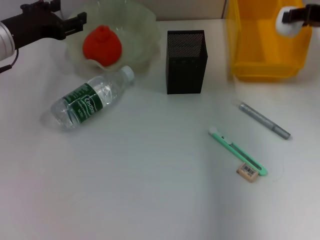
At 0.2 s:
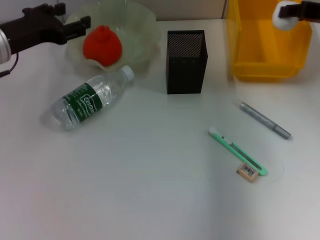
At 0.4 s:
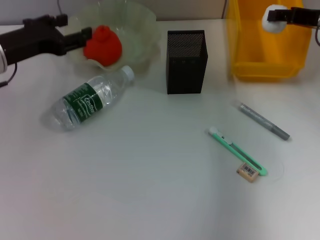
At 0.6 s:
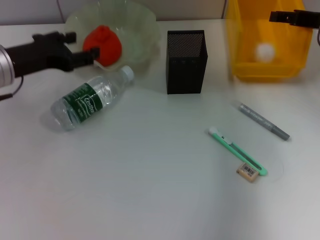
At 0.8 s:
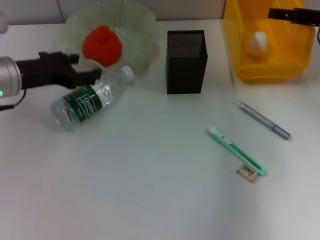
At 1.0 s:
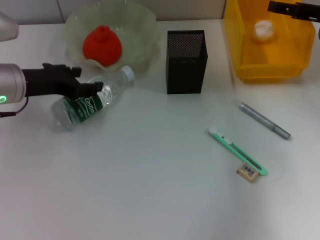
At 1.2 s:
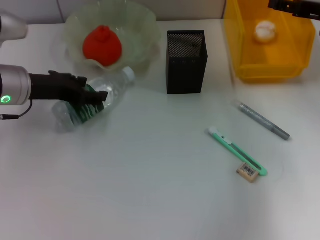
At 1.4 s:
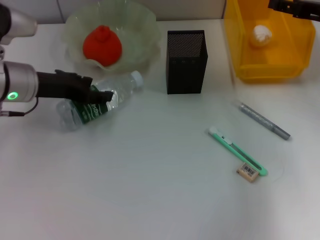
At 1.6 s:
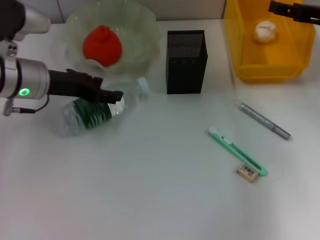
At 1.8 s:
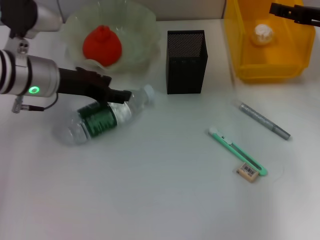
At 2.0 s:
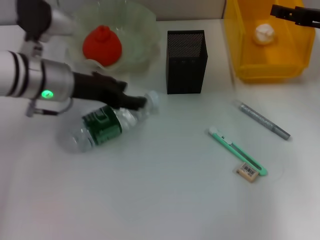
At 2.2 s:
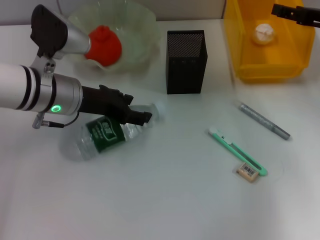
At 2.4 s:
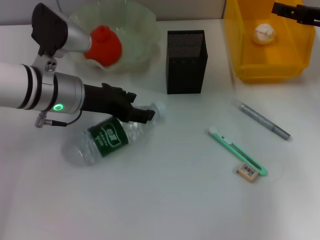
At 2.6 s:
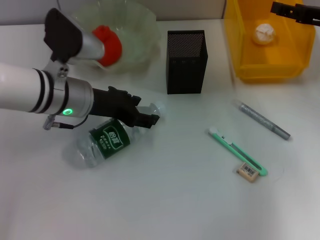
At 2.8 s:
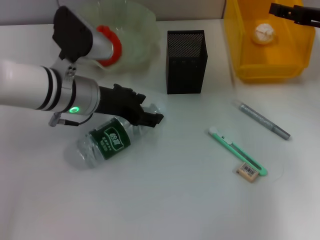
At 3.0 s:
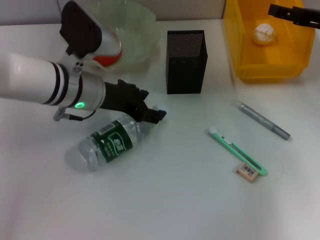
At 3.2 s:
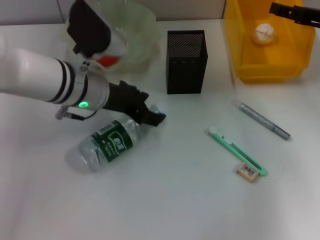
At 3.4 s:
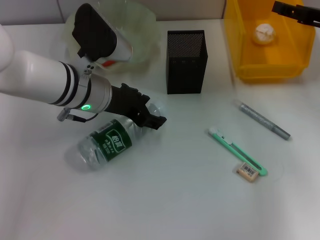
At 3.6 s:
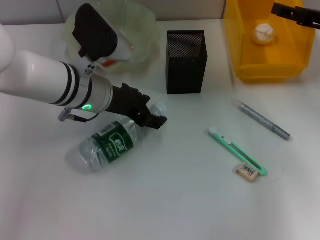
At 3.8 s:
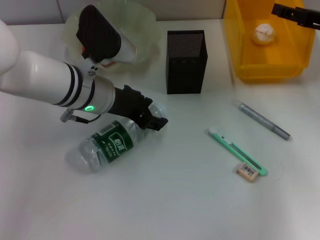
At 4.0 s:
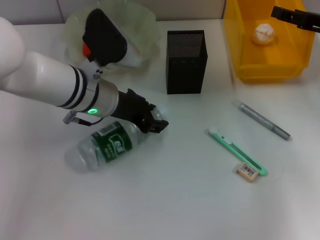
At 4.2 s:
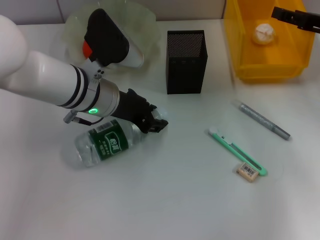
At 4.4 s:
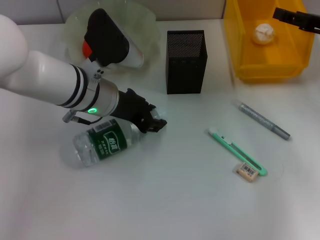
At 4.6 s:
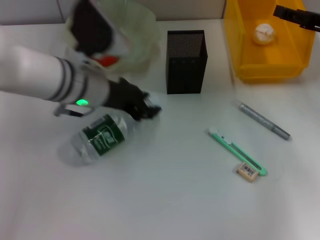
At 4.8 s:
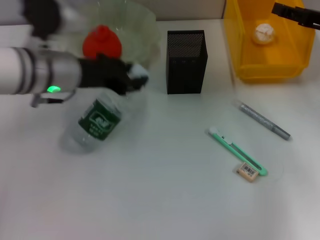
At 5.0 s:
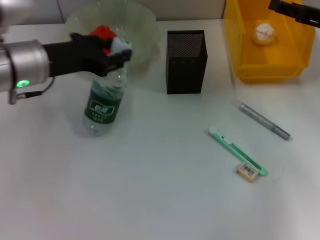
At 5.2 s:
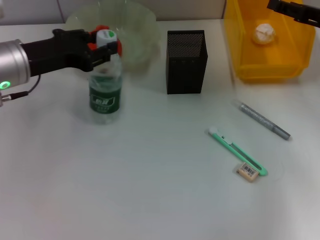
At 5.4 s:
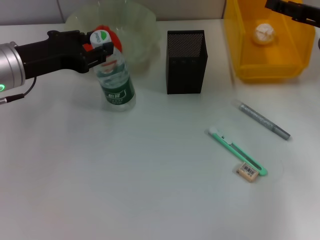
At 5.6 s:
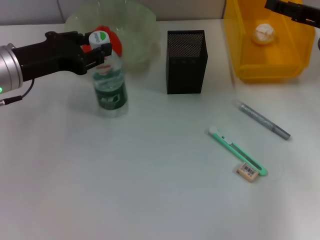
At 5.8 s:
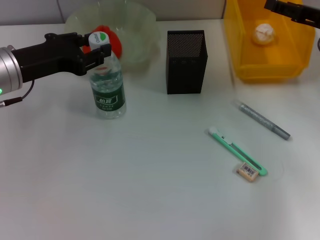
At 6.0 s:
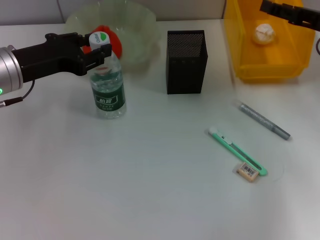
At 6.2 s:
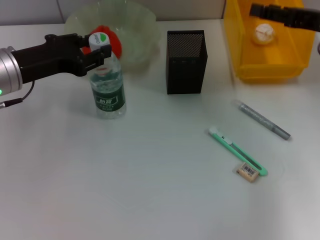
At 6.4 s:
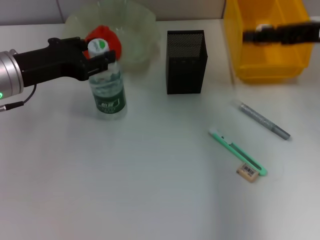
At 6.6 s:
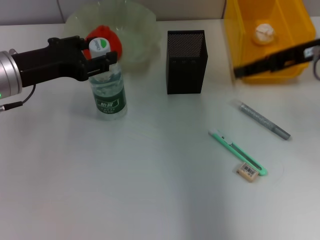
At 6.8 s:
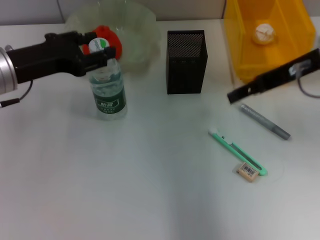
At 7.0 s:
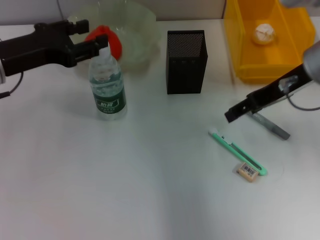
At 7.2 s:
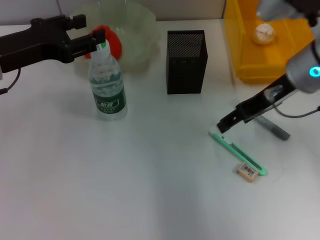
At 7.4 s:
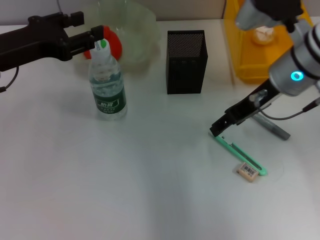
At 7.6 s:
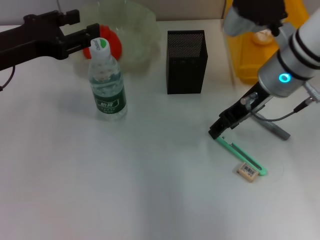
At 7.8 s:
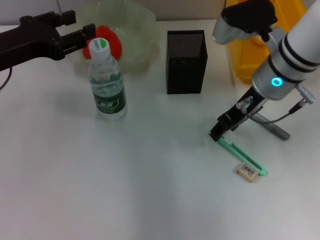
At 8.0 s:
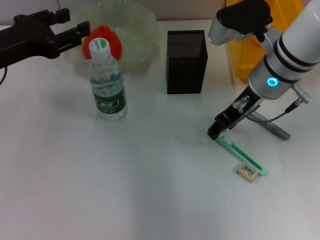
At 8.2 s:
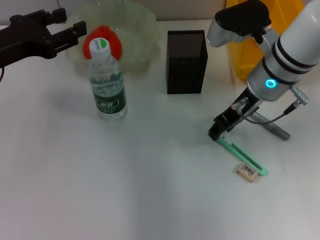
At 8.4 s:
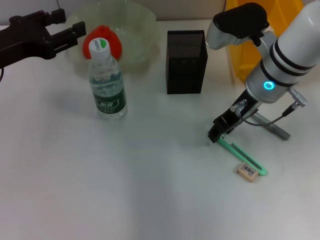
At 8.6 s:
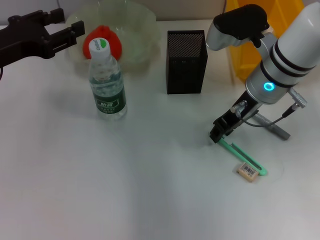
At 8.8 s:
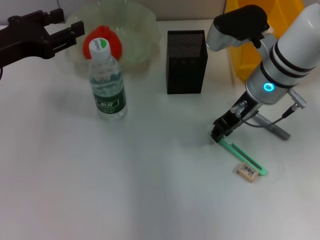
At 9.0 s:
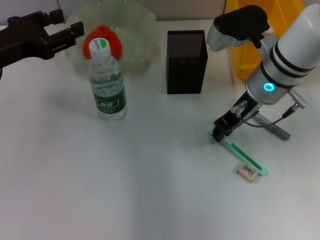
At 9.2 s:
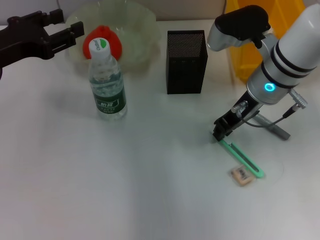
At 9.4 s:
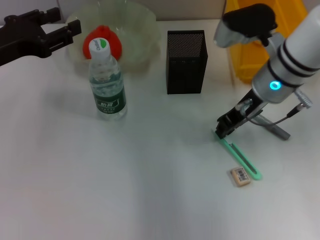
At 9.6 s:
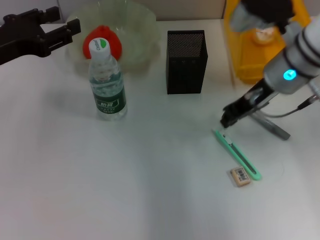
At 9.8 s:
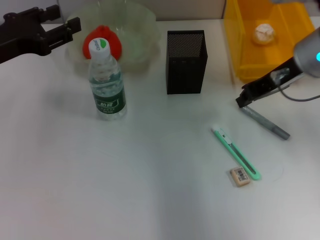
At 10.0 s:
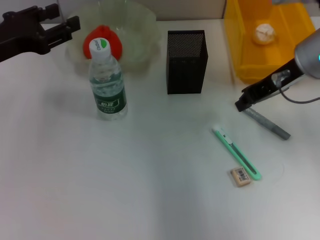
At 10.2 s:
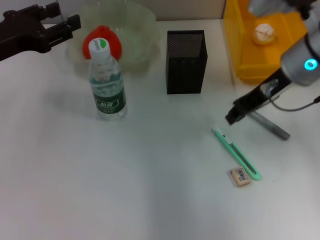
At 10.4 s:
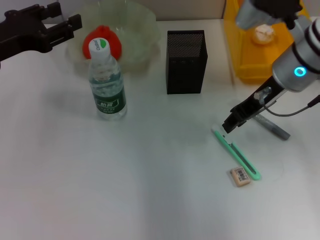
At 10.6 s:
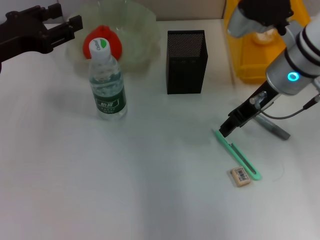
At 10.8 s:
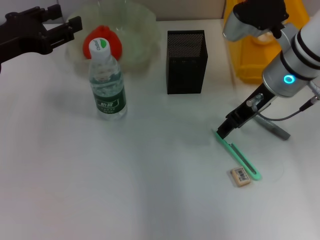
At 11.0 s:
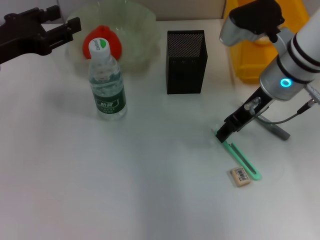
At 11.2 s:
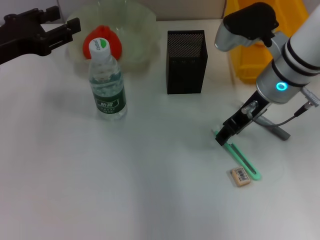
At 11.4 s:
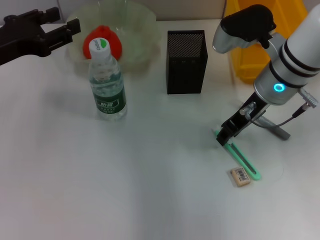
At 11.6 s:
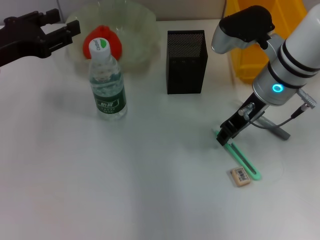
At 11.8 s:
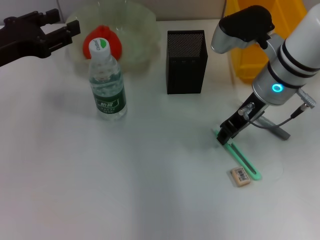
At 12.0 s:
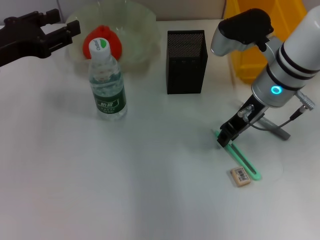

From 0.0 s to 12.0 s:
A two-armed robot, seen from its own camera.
Step, from 0.8 s to 4.4 s: Grab the water bottle with the left hand.
Step, from 4.6 s to 6.8 s: Place the water bottle on the table with the left hand.
From 0.0 s to 1.6 s: The right gripper opens. Meanwhile the left gripper shifts by roughly 5 cm.
From 1.6 s to 3.0 s: The left gripper moves to the right, approximately 10 cm.
From 3.0 s to 4.4 s: The left gripper closes up.
From 4.4 s to 6.0 s: The left gripper is displaced to the left by some 10 cm.
From 6.0 s to 7.6 s: The right gripper is displaced to the left by about 15 cm.
From 7.6 s to 9.0 s: The right gripper closes up.
From 10.4 s to 12.0 s: The right gripper opens, then closes once more.

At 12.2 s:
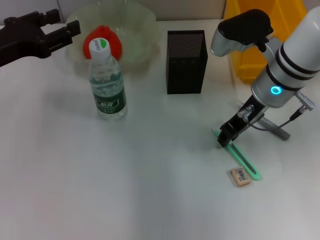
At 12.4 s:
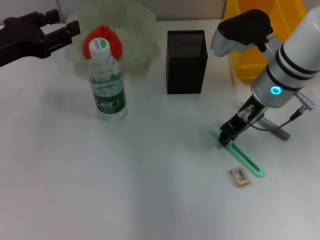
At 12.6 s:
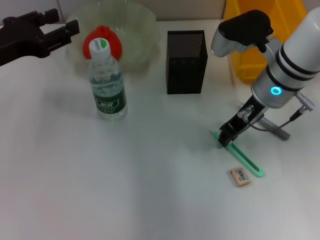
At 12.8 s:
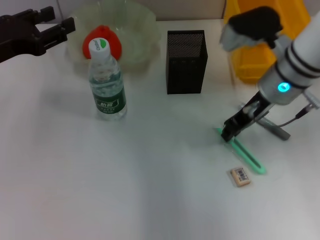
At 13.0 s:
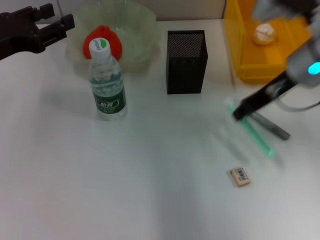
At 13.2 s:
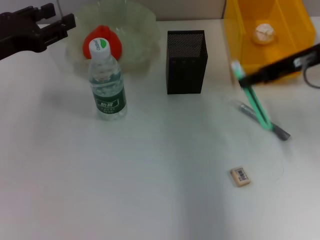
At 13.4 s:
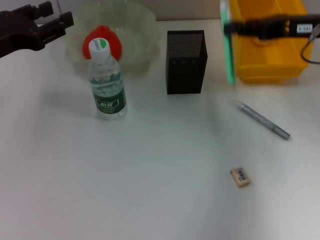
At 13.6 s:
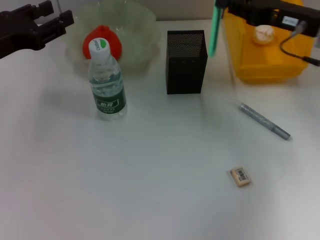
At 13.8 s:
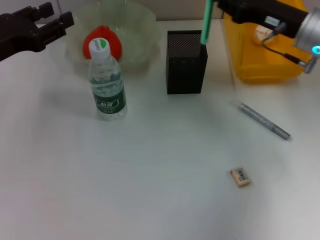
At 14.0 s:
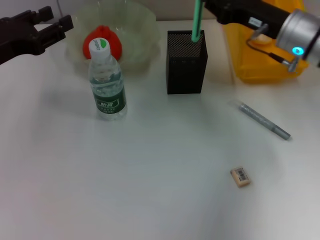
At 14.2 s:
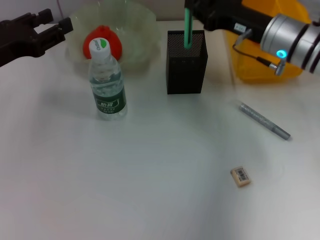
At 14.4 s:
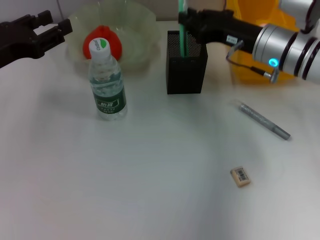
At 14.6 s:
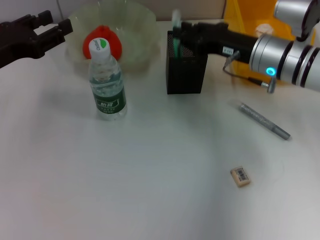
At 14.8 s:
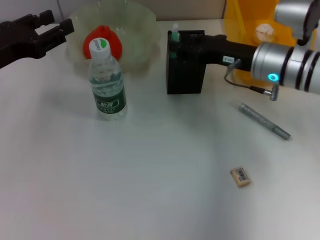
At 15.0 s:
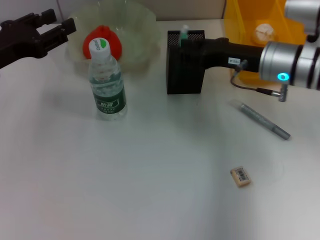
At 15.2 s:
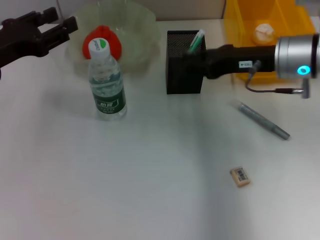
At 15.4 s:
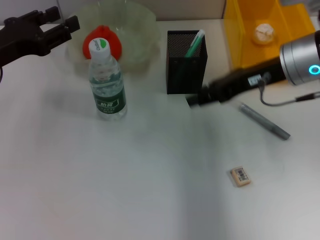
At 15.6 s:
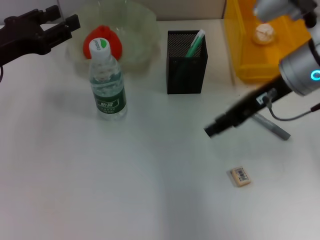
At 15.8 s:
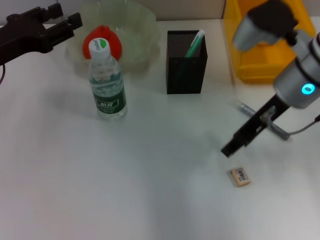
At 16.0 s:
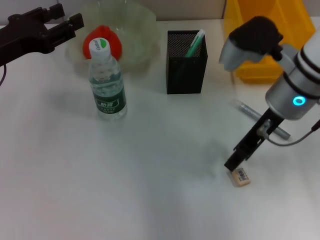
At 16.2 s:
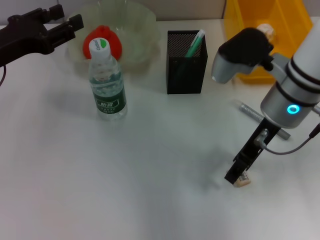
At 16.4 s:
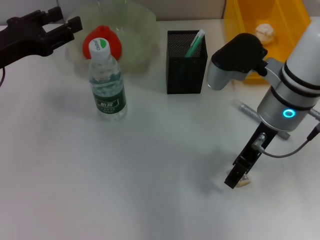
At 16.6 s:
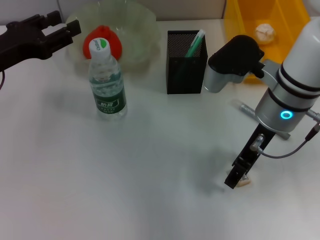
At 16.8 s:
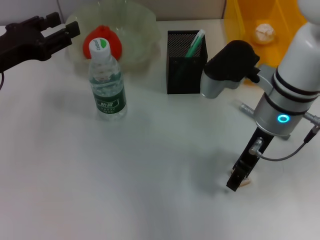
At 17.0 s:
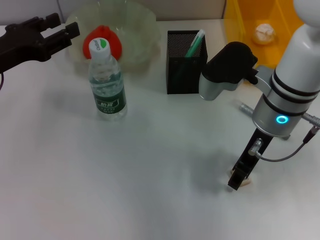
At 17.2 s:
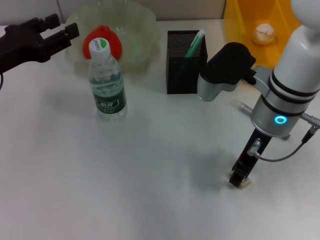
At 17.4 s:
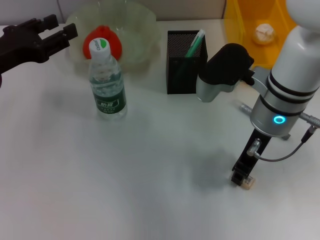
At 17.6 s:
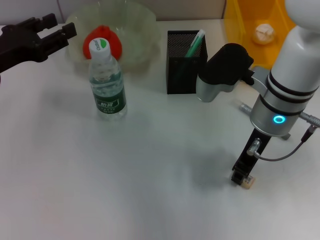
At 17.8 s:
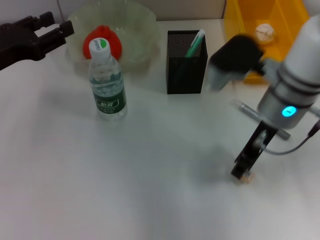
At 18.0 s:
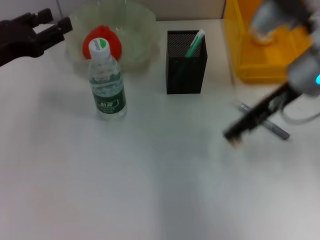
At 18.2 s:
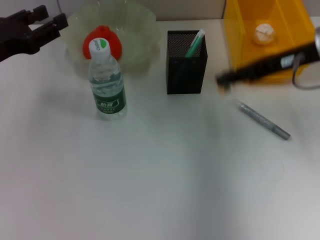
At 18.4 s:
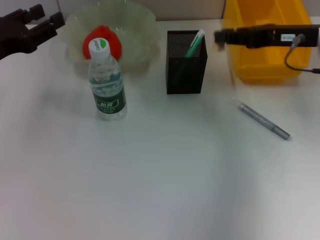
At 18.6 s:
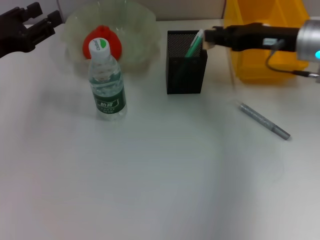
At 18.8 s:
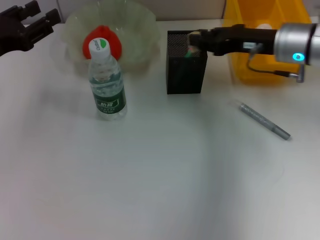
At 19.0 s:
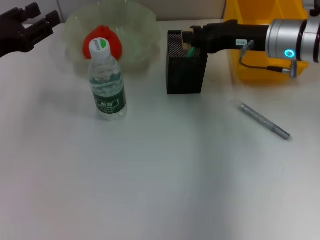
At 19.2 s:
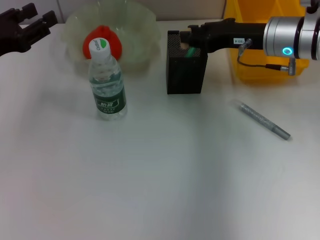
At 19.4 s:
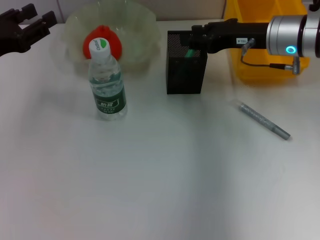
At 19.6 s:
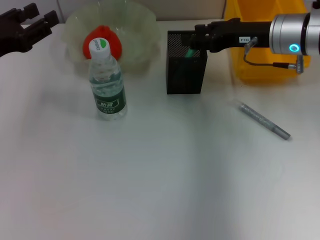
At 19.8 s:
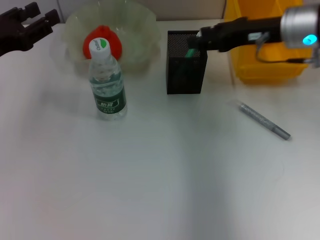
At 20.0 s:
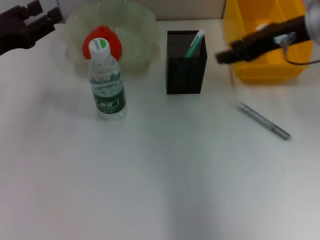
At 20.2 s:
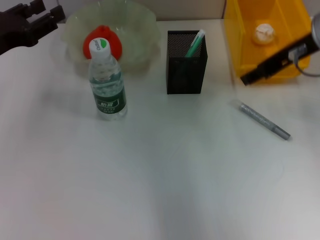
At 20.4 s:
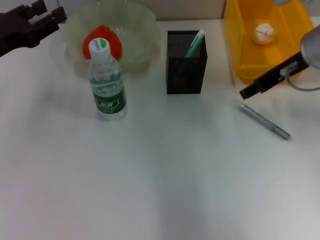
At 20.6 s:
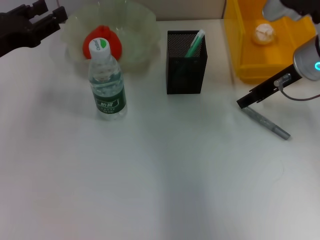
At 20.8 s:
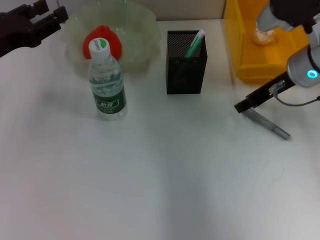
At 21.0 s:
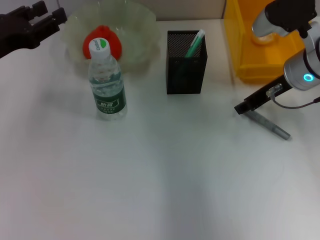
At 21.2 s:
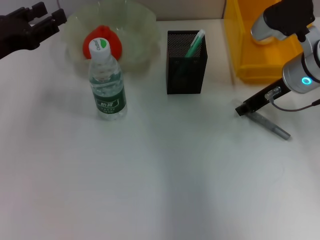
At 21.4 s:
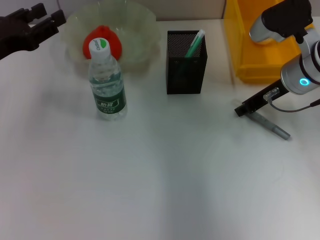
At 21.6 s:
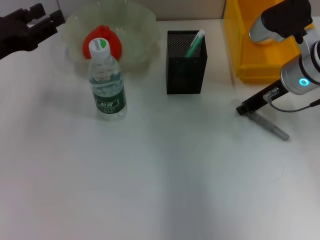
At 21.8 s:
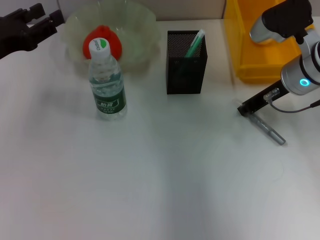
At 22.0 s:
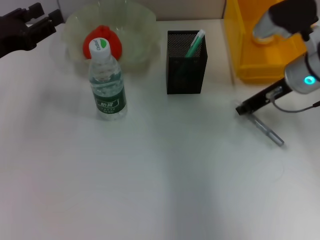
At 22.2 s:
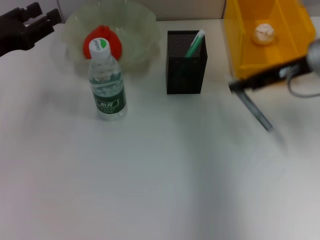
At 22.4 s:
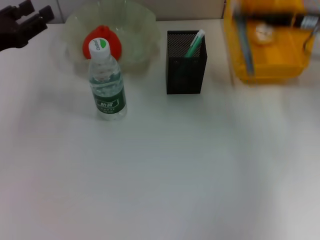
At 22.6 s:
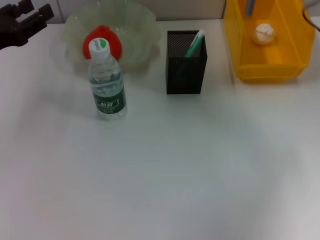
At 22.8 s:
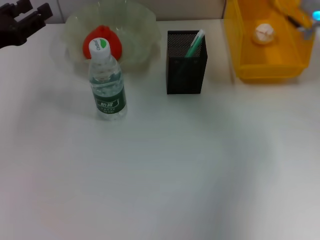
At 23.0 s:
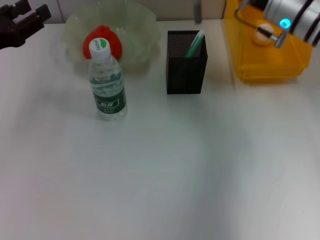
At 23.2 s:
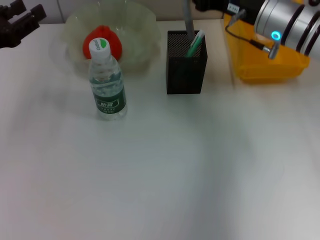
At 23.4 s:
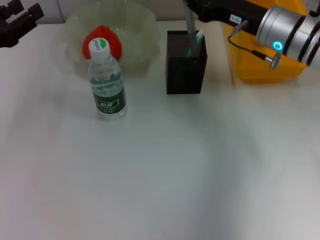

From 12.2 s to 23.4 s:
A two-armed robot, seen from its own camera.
Step, from 12.8 s to 14.8 s: Place the blue utility knife into the pen holder with the right hand.
Step, from 15.0 s to 17.4 s: Grab the eraser with the right hand.
Step, from 17.6 s to 19.2 s: Put the eraser into the pen holder with the right hand.
Step, from 19.4 s to 21.8 s: Grab the gray glue with the right hand.
From 12.2 s to 13.8 s: The right gripper is displaced to the right by approximately 10 cm.
From 13.8 s to 15.4 s: The right gripper ends up about 5 cm from where it was, and opens up.
From 15.4 s to 17.0 s: The right gripper heads to the left, covering roughly 5 cm.
From 17.0 s to 18.6 s: The right gripper is displaced to the right and forward by approximately 10 cm, and closes.
From 18.6 s to 20.2 s: The right gripper heads upward, covering some 5 cm.
From 20.2 s to 21.8 s: The right gripper goes roughly 10 cm downward, and closes its fingers.
From 21.8 s to 23.4 s: The right gripper moves roughly 5 cm to the right and comes back.
